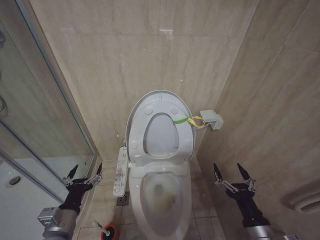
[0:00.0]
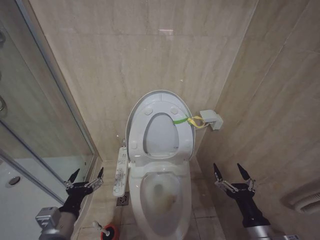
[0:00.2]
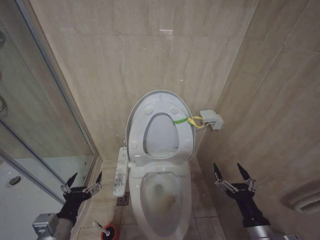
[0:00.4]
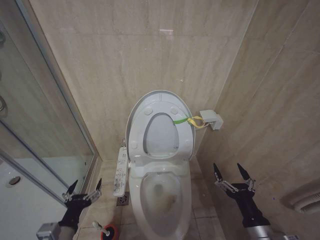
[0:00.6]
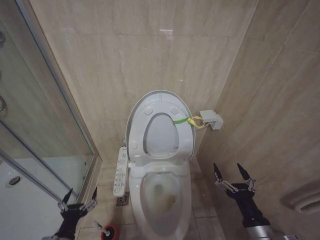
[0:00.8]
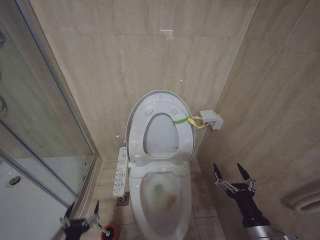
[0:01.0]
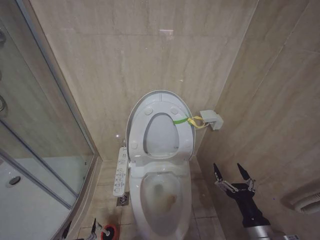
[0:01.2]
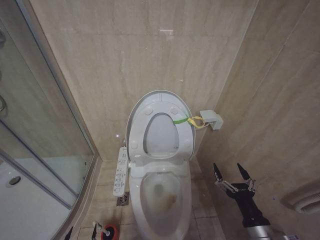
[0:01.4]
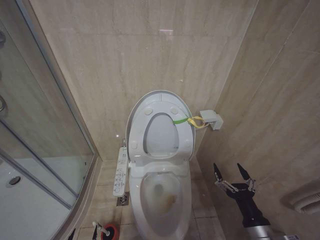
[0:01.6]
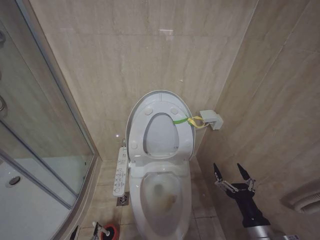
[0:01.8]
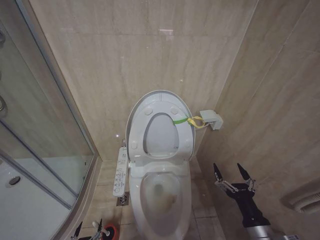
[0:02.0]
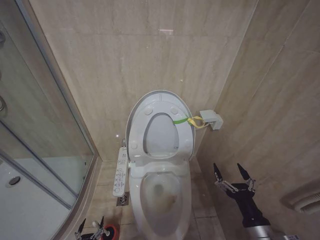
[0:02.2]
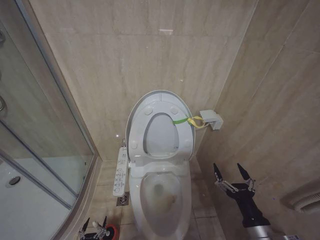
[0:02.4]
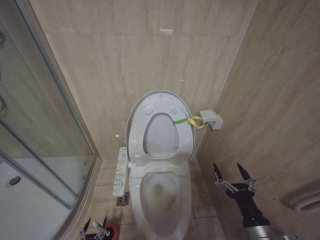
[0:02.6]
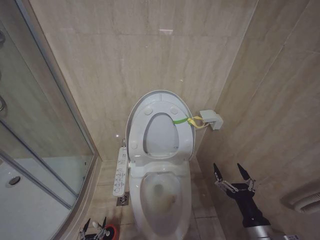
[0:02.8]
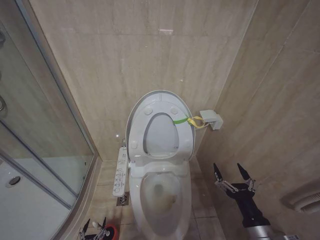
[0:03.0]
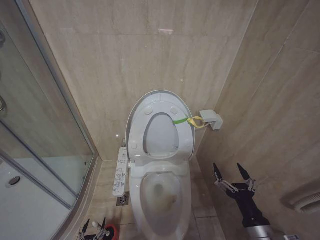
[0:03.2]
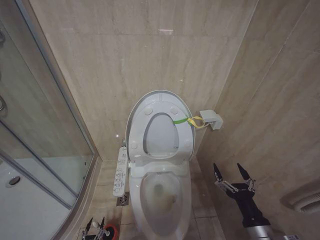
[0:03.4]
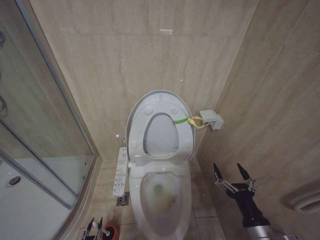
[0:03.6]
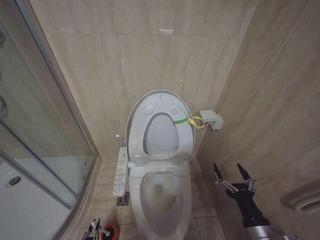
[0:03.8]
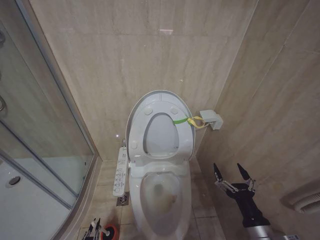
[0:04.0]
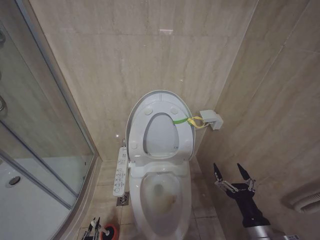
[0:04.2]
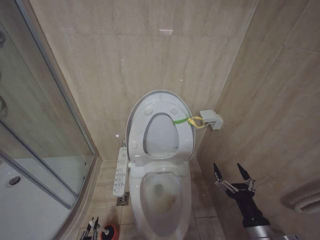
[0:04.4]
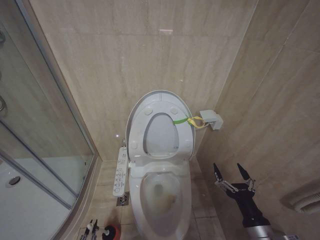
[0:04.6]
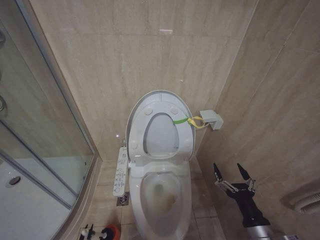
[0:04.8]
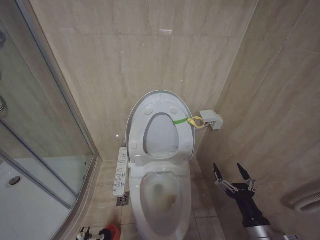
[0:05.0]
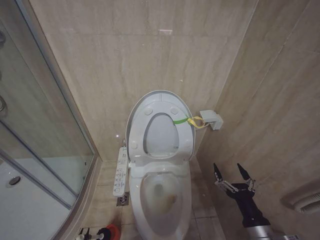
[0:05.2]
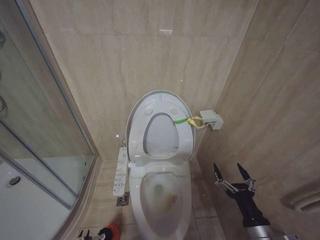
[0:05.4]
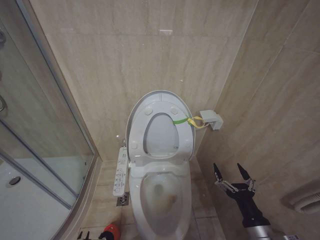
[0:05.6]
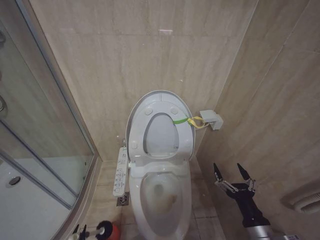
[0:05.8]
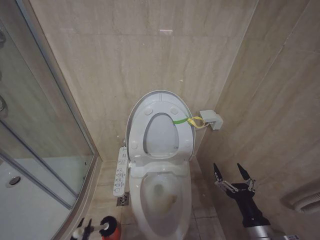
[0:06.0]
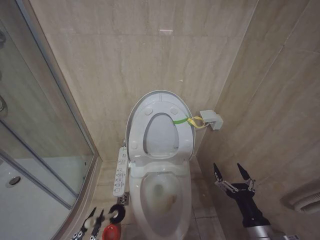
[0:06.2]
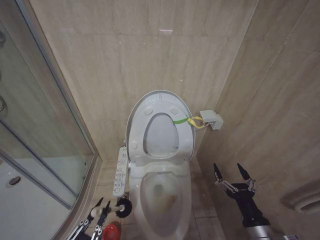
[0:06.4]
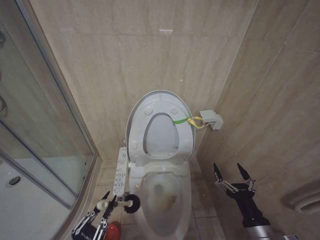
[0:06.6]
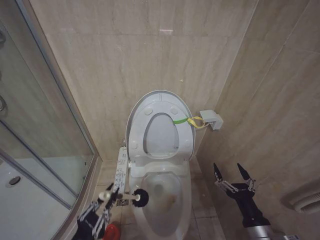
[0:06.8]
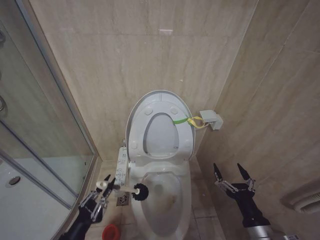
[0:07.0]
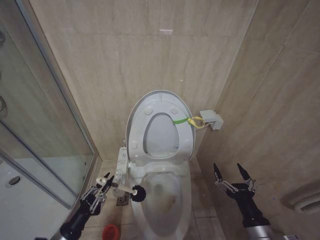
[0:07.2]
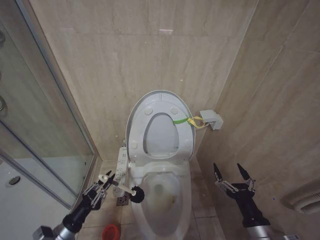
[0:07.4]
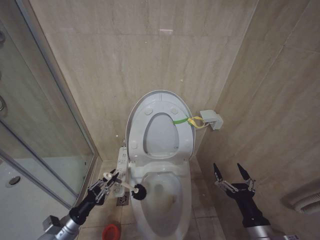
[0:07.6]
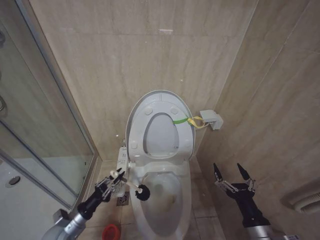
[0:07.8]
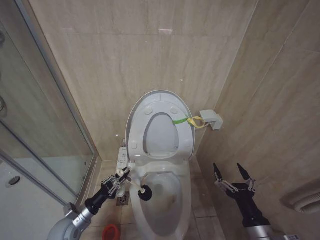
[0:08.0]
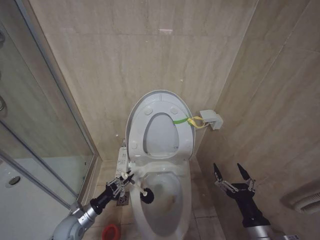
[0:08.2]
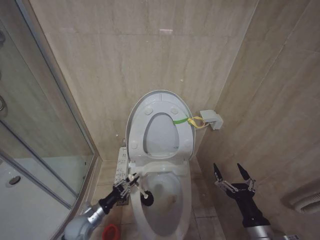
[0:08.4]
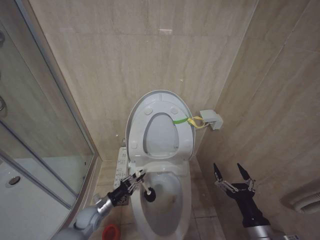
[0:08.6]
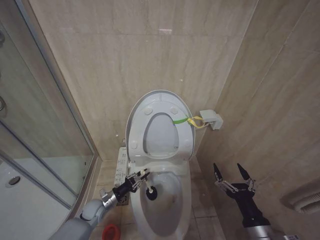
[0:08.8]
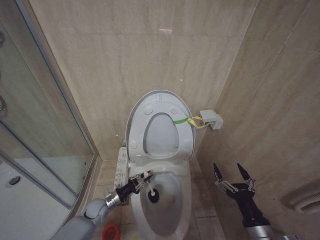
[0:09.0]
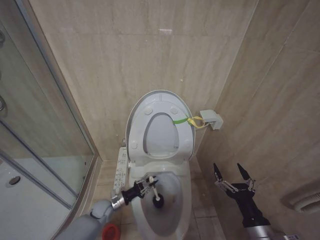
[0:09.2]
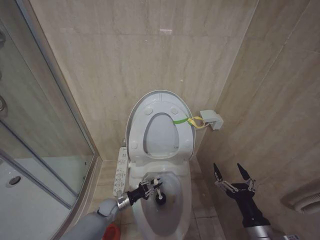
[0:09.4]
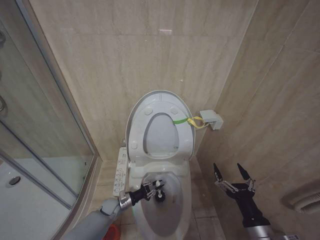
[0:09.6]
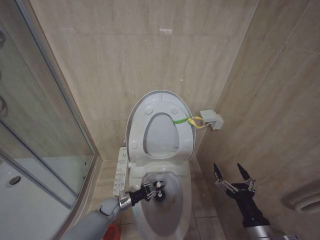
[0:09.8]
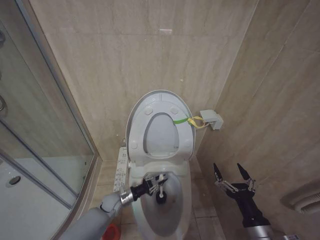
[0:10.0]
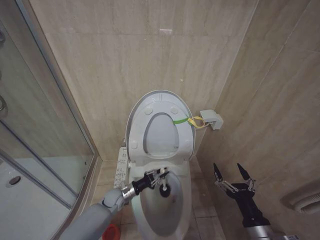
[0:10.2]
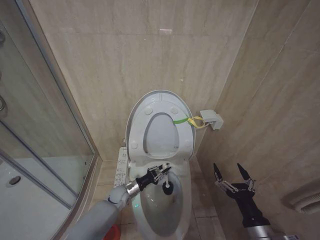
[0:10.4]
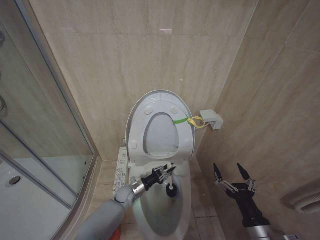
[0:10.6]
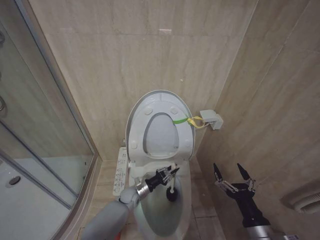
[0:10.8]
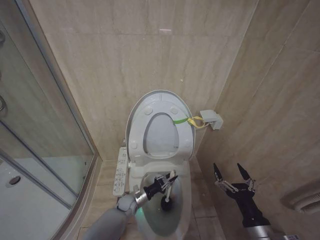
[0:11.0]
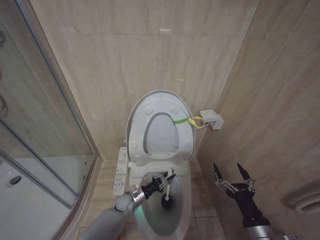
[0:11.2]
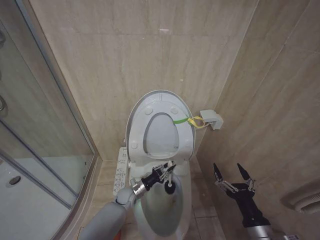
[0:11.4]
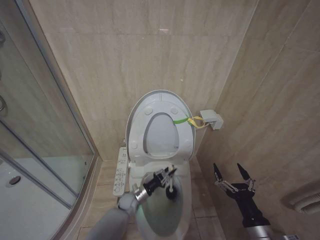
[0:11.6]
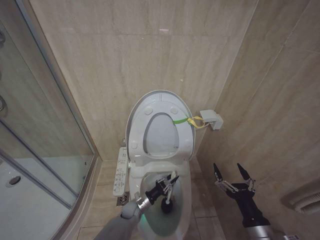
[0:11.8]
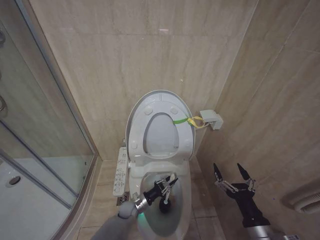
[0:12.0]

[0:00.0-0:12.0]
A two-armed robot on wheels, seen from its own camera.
Task of the whole recording: Open the toilet lid, clean the toilet bowl with a toilet brush, close the toilet lid, and flush.
0:00.0 to 0:01.6: The left gripper is displaced downward and backward by roughly 30 cm.
0:04.4 to 0:06.0: The left gripper heads upward and backward, covering roughly 30 cm.
0:06.0 to 0:07.6: The left gripper heads forward, covering roughly 25 cm.
0:07.6 to 0:09.0: The left gripper goes roughly 20 cm forward, to the right and downward.
0:09.0 to 0:10.4: The left gripper travels to the right and forward by roughly 10 cm.
0:10.4 to 0:12.0: The left gripper goes about 10 cm downward and to the right.

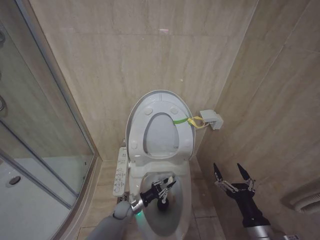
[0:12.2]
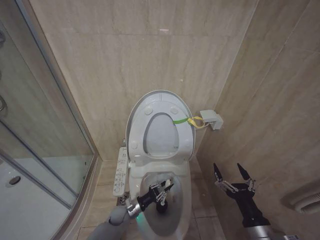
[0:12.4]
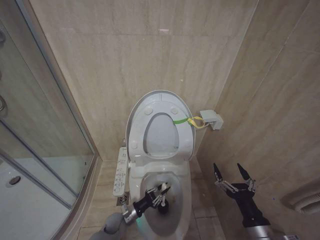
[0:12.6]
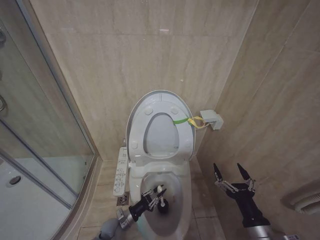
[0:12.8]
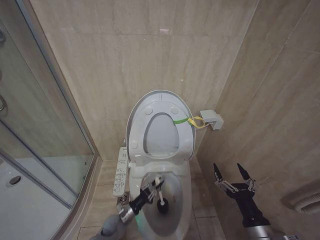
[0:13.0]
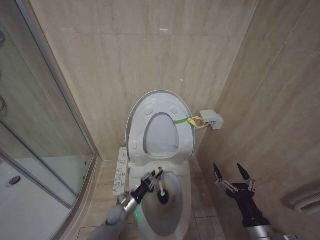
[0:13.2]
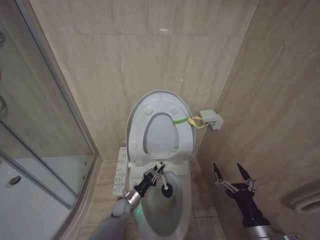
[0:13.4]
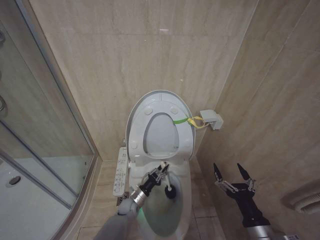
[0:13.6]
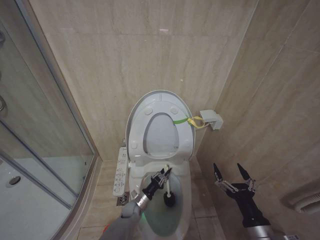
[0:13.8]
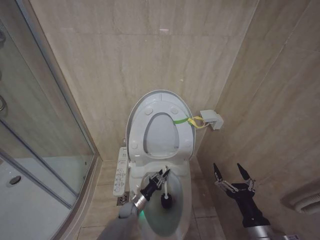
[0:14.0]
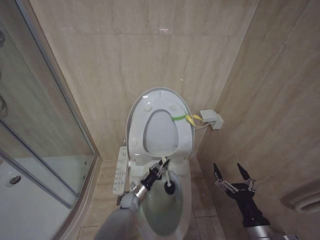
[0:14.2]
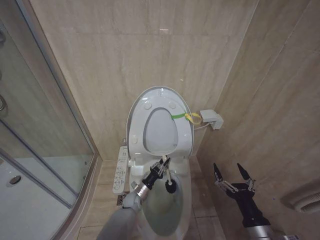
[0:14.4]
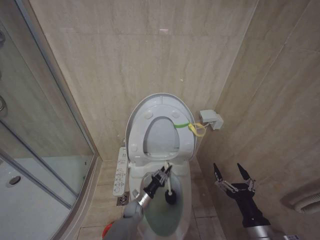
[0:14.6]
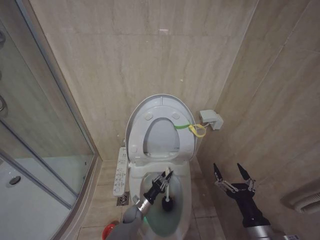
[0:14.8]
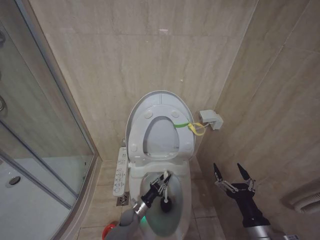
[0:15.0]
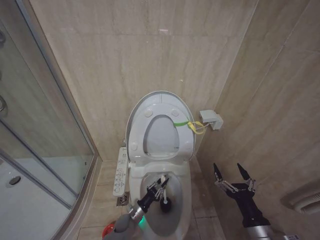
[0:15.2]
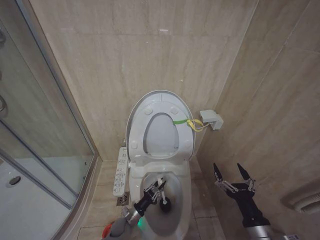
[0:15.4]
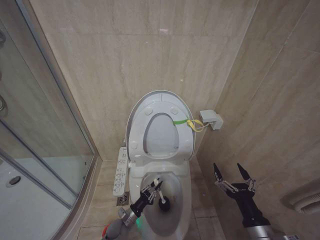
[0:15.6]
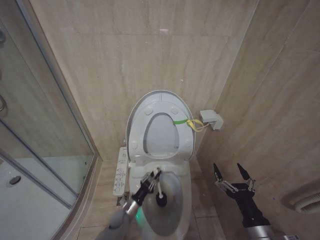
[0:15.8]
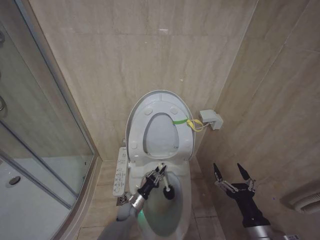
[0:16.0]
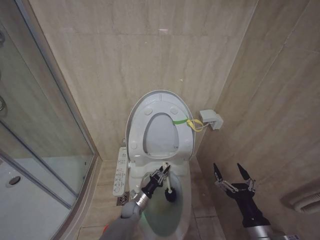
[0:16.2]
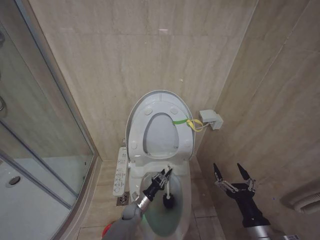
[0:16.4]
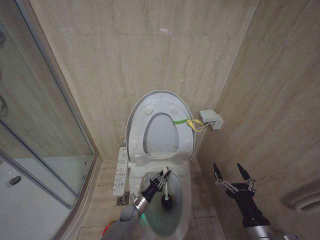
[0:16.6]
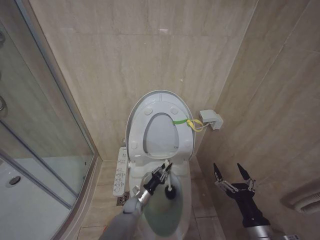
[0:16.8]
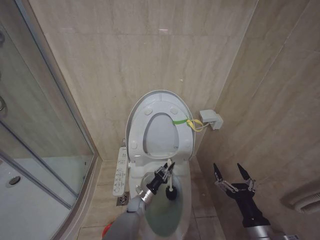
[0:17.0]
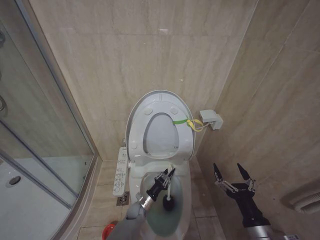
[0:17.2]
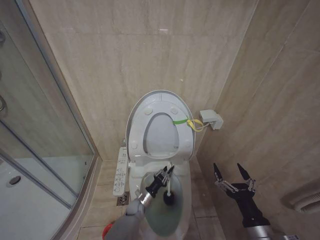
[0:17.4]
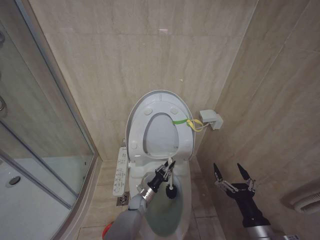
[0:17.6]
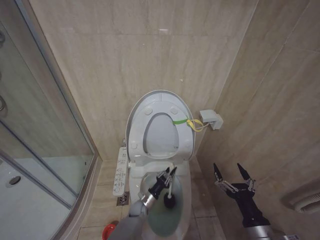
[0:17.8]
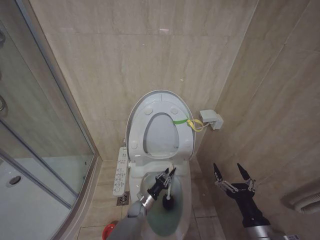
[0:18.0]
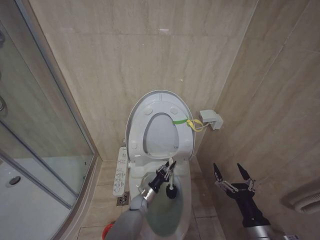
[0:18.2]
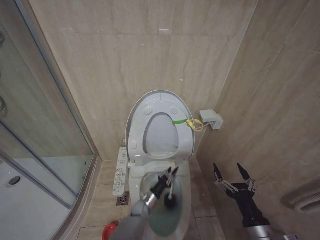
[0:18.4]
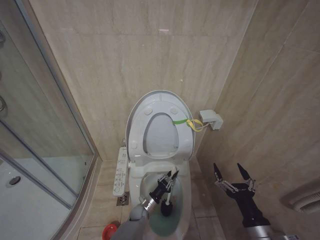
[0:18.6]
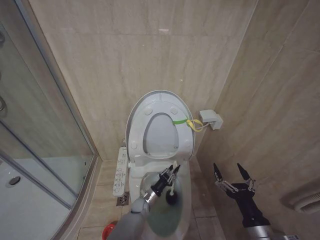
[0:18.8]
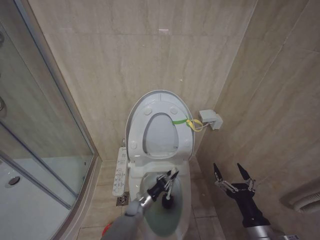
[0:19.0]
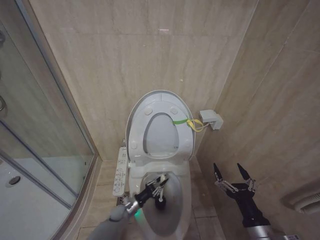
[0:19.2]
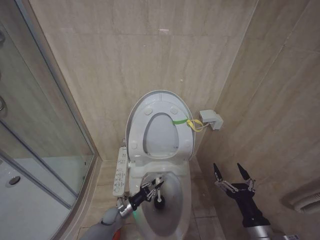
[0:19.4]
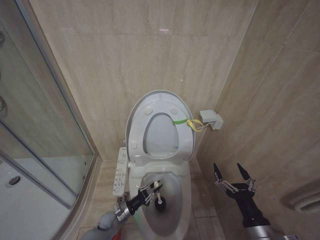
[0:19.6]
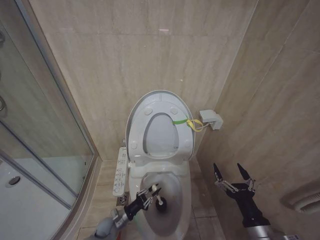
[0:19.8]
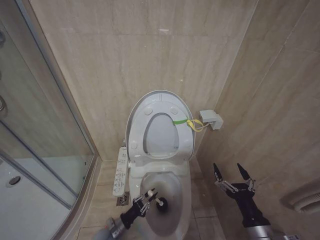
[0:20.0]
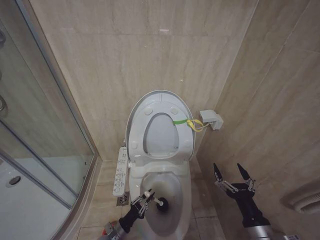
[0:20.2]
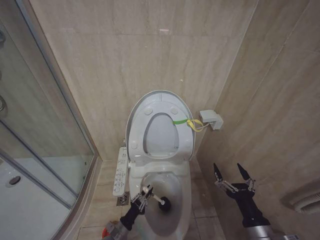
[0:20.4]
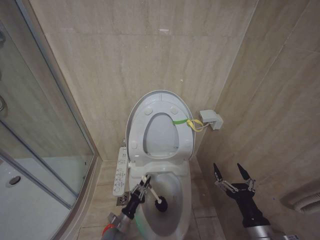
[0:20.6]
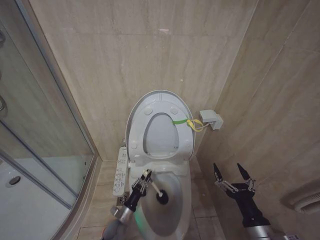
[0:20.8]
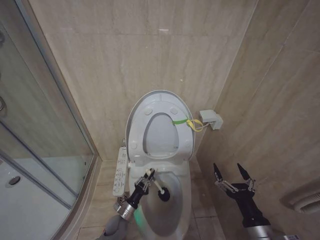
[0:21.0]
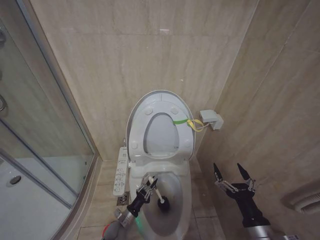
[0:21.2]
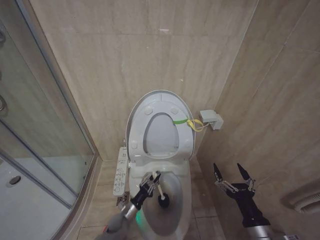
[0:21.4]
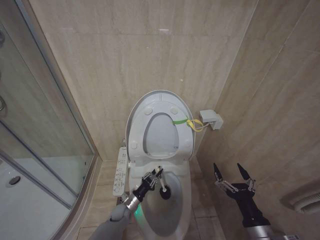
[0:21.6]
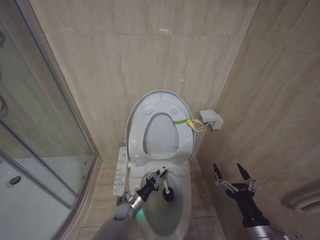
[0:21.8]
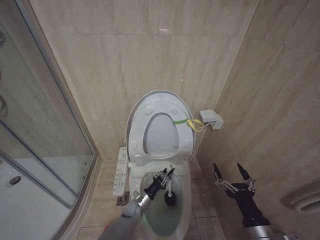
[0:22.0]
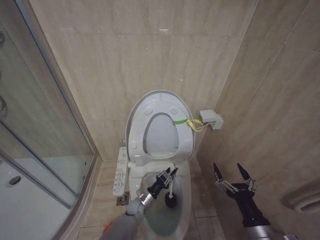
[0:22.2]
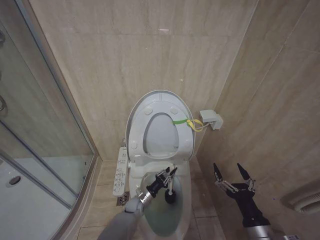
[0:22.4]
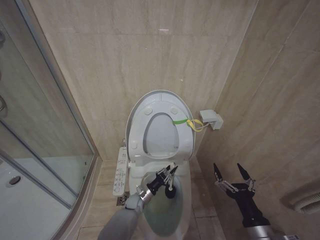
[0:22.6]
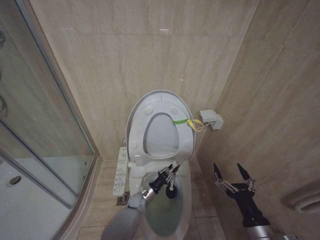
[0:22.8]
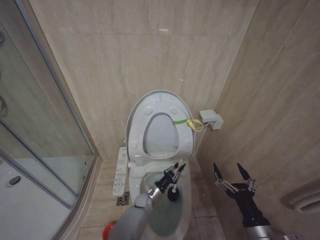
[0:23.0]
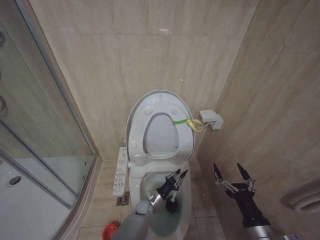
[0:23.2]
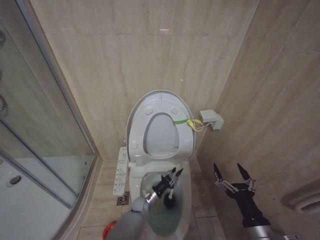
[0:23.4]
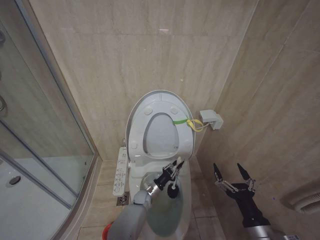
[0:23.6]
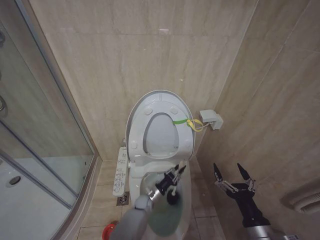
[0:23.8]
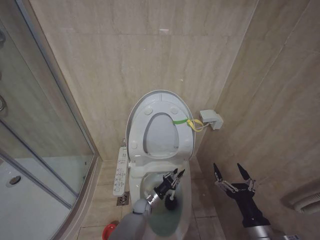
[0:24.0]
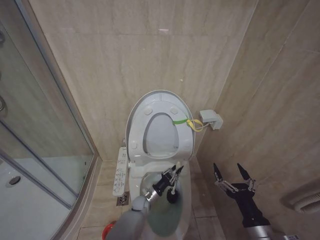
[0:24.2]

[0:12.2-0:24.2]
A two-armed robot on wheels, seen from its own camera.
Task of the whole recording: Open the toilet lid, clean the toilet bowl with a toilet brush, close the toilet lid, and flush.
0:12.2 to 0:13.8: The left gripper travels backward and back again, approximately 5 cm each way.
0:13.8 to 0:15.2: The grippers move only a little.
0:15.2 to 0:16.6: The grippers make only small movements.
0:16.6 to 0:18.2: There are only small adjustments of the grippers.
0:18.2 to 0:19.8: The left gripper shifts roughly 15 cm to the left and backward.
0:19.8 to 0:21.2: The left gripper moves some 10 cm backward and comes back.
0:21.2 to 0:22.6: The left gripper goes about 15 cm forward and to the right.
0:22.6 to 0:24.2: The grippers move only a little.
